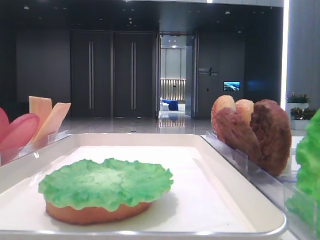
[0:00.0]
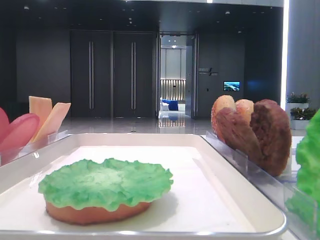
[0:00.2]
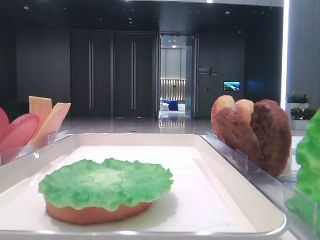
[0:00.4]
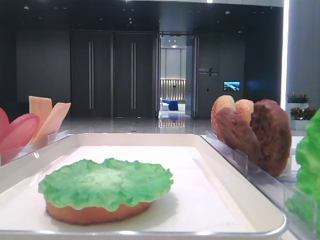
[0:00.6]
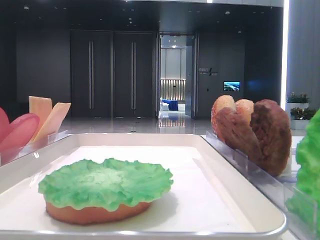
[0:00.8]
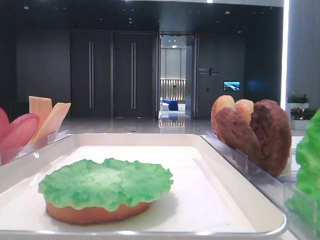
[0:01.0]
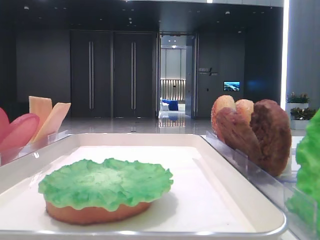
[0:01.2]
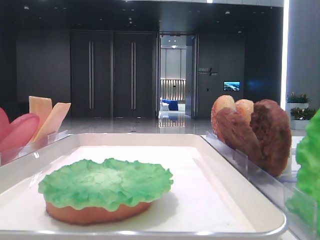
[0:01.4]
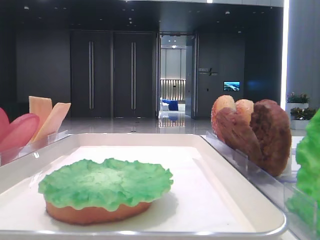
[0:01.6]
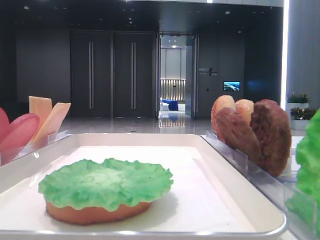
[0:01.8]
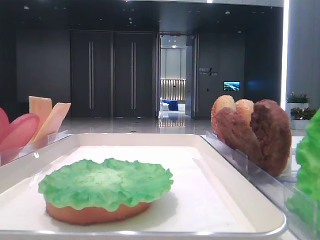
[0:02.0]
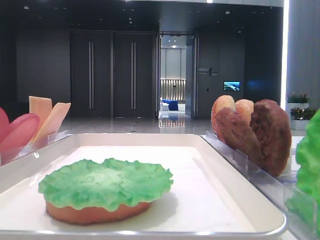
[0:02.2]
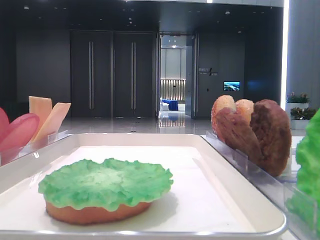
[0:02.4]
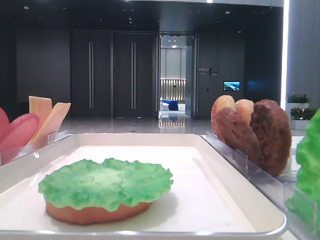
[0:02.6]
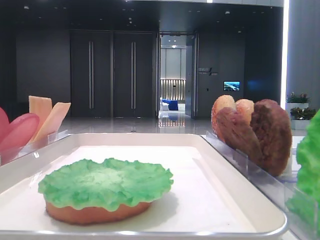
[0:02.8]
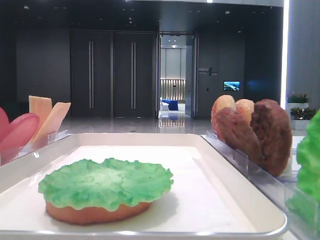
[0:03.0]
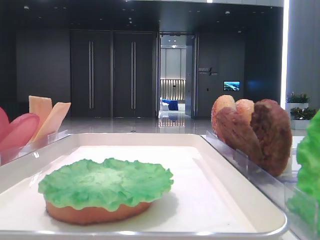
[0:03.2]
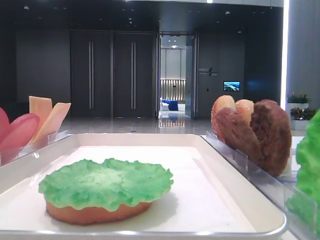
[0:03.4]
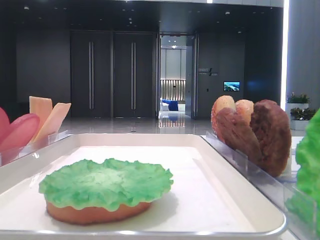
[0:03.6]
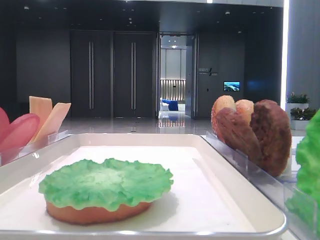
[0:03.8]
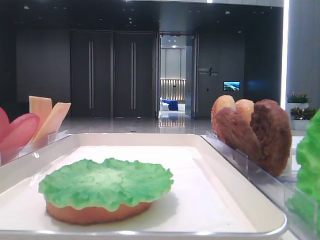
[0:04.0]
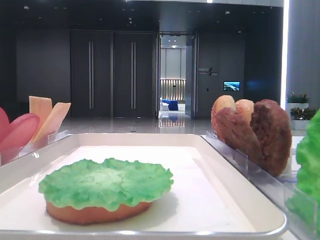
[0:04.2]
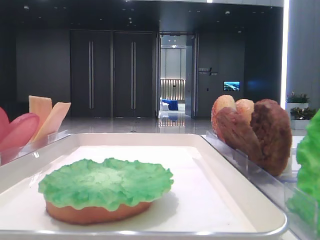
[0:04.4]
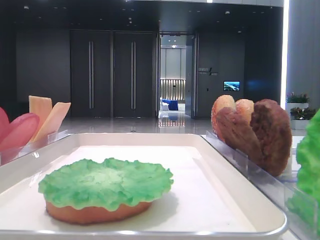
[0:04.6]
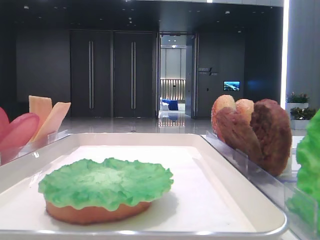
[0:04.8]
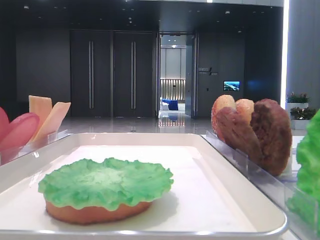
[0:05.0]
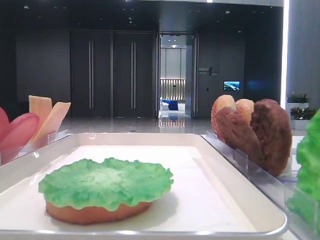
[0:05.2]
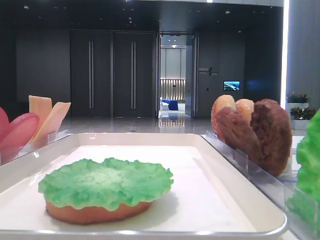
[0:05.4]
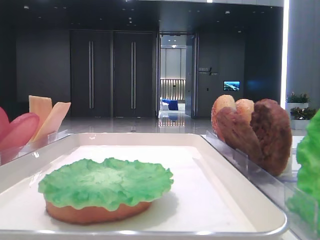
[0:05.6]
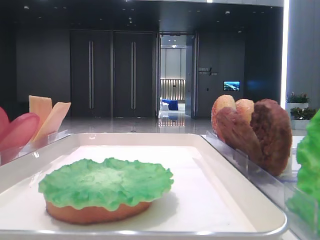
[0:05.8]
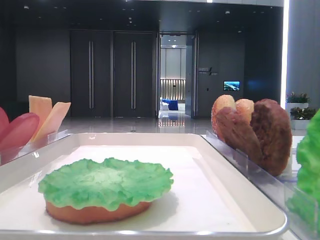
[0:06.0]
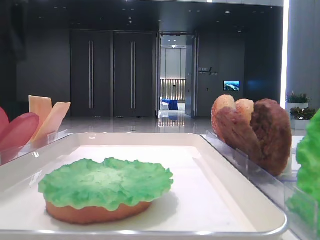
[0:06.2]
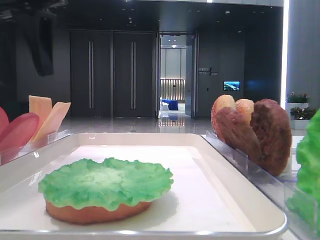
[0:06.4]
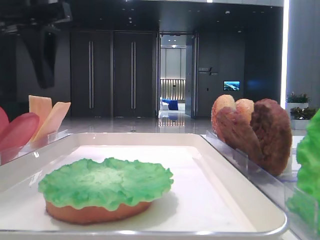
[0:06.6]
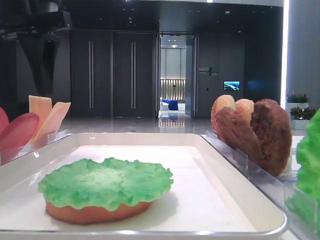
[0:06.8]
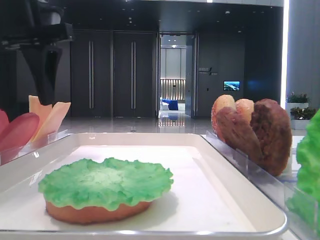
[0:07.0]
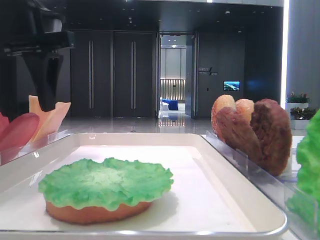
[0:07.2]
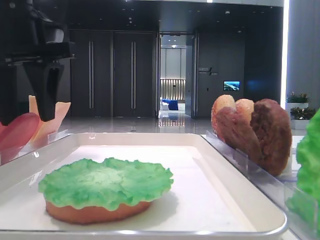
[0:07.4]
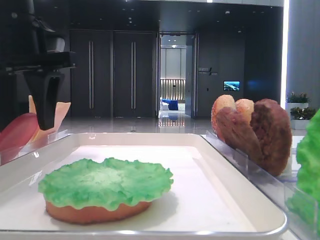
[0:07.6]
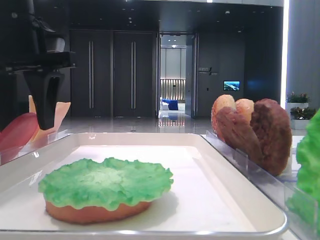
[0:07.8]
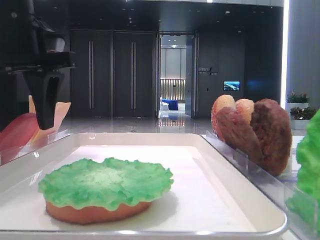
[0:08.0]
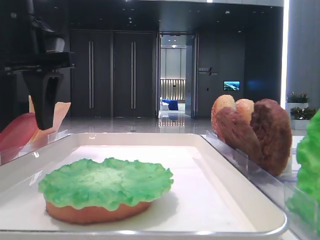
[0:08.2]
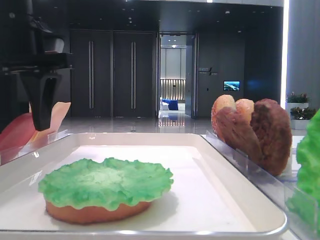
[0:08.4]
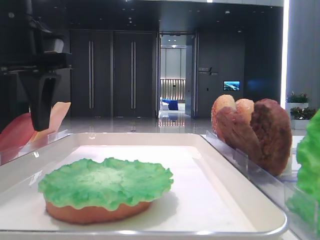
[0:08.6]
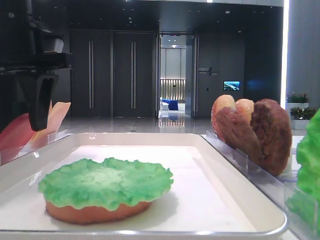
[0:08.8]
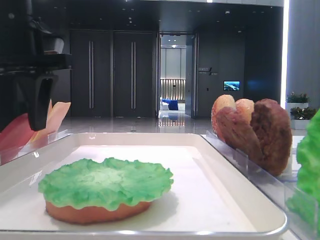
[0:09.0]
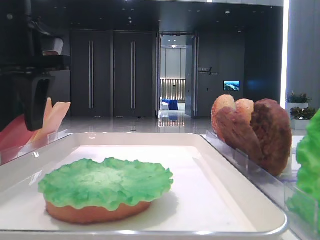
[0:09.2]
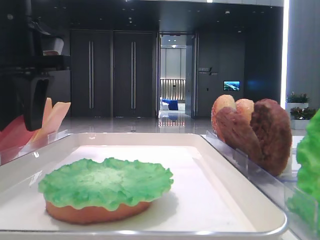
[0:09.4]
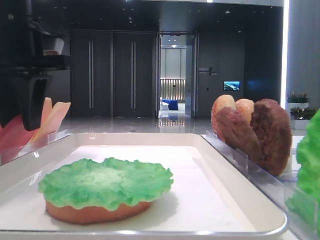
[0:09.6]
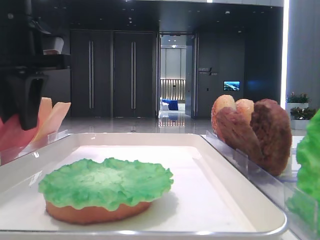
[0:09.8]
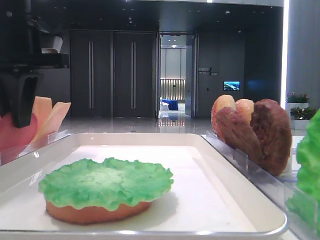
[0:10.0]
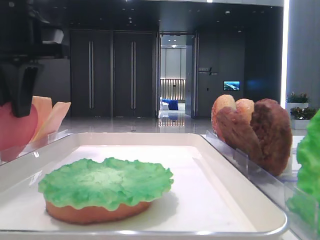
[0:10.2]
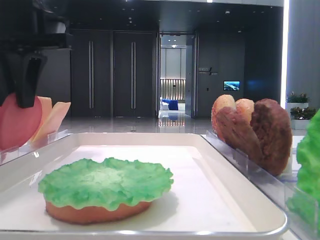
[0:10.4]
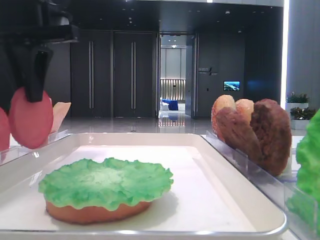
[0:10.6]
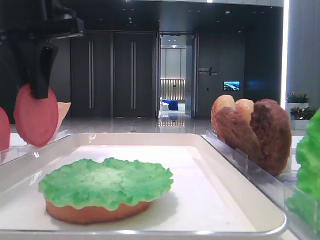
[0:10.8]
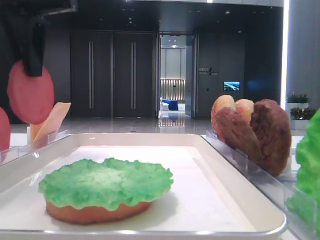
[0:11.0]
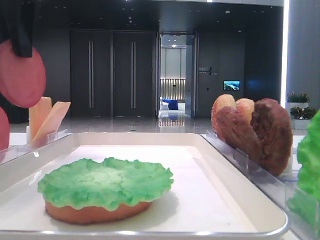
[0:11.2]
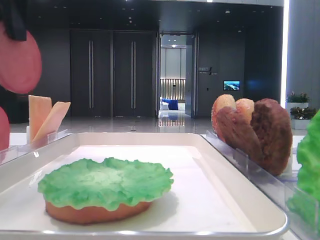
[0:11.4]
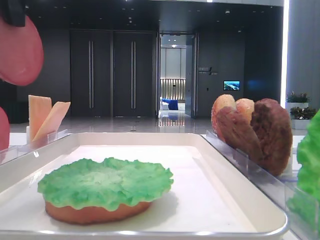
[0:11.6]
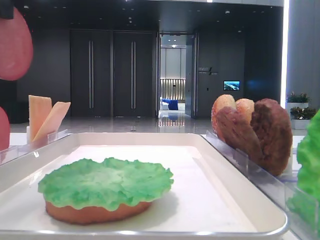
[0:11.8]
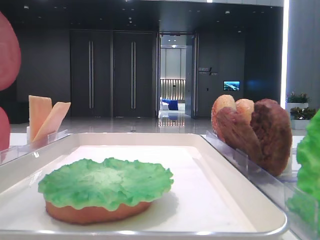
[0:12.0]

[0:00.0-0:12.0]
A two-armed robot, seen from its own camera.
Step, 0:00.0 to 0:10.2: Pick up the tomato slice with the left hand.
0:06.0 to 0:07.6: The left gripper goes about 10 cm downward and to the right.
0:07.6 to 0:09.0: The two grippers keep their place.
0:09.0 to 0:10.4: The left gripper closes.
0:10.4 to 0:12.0: The left gripper goes roughly 15 cm backward and upward.

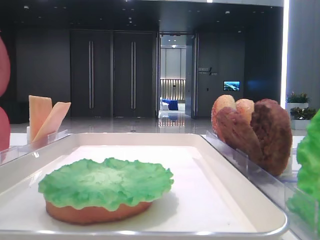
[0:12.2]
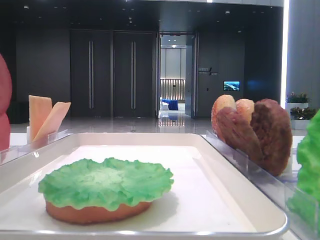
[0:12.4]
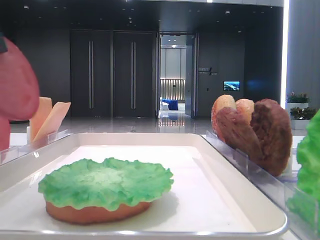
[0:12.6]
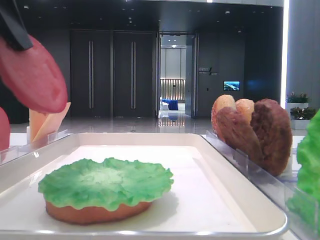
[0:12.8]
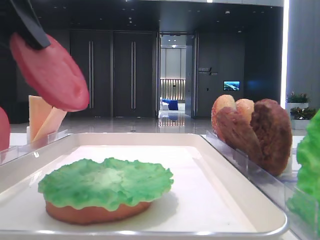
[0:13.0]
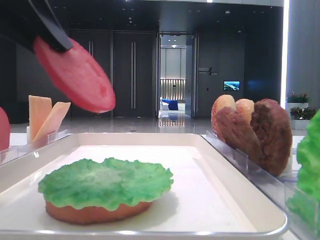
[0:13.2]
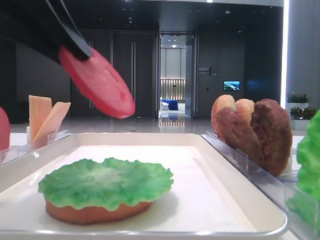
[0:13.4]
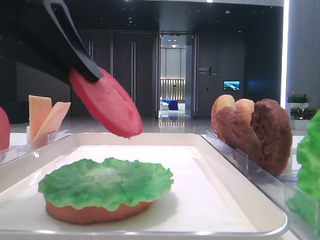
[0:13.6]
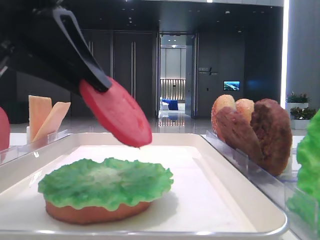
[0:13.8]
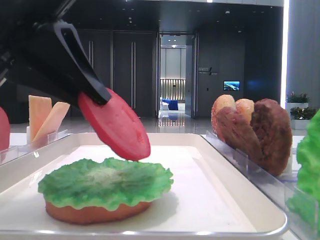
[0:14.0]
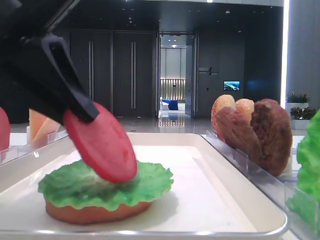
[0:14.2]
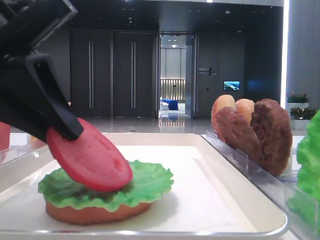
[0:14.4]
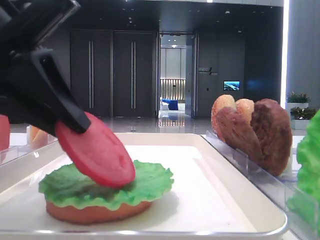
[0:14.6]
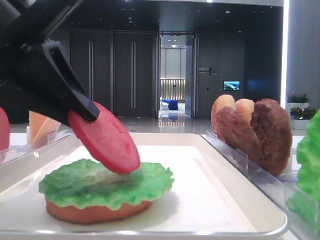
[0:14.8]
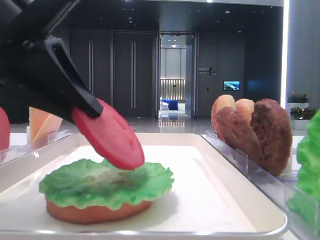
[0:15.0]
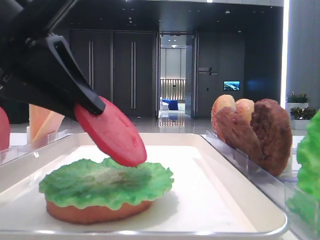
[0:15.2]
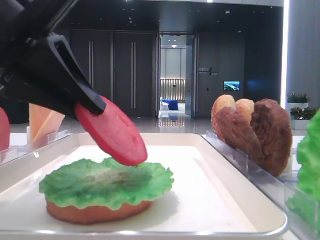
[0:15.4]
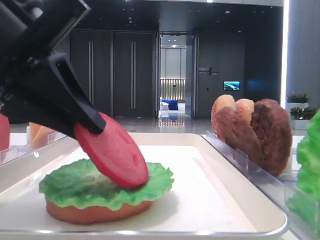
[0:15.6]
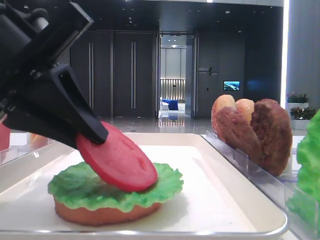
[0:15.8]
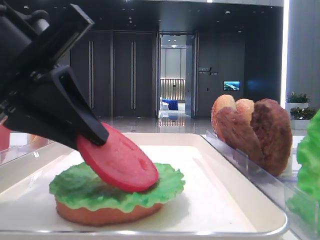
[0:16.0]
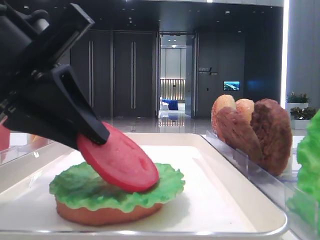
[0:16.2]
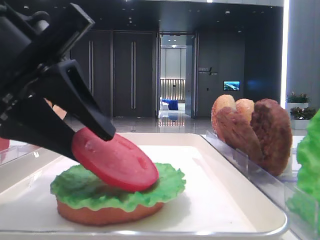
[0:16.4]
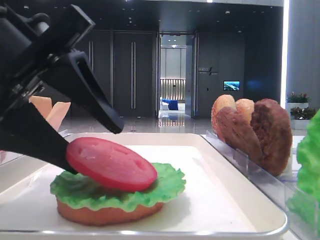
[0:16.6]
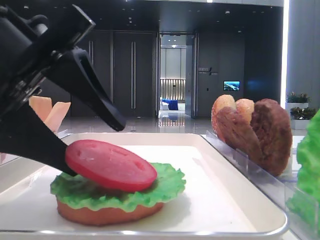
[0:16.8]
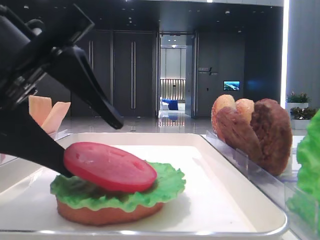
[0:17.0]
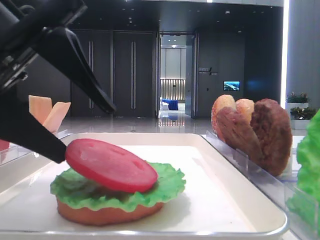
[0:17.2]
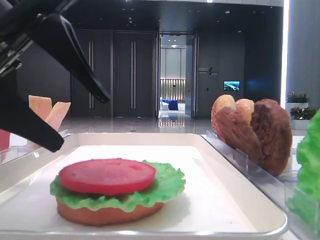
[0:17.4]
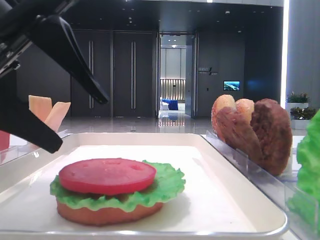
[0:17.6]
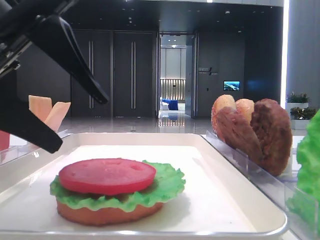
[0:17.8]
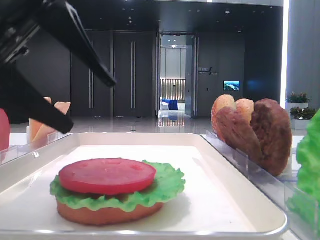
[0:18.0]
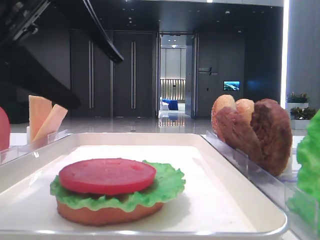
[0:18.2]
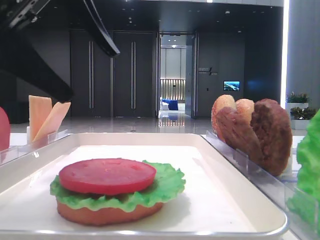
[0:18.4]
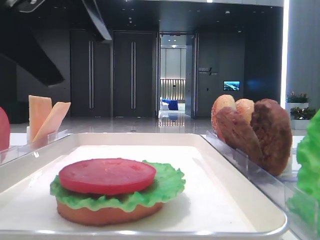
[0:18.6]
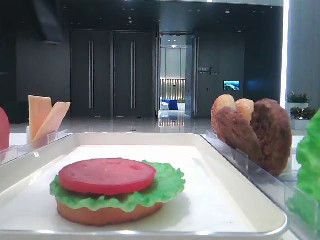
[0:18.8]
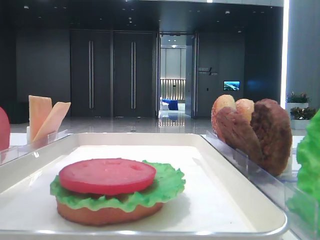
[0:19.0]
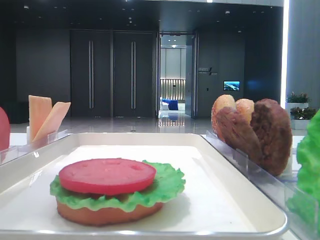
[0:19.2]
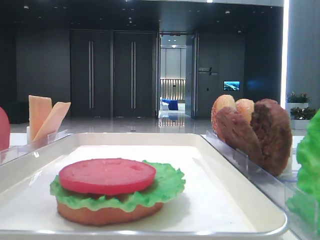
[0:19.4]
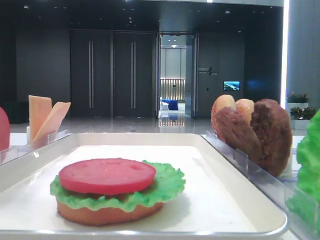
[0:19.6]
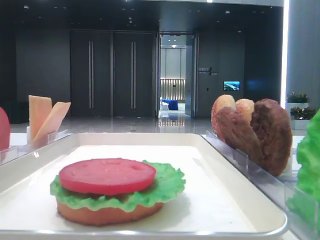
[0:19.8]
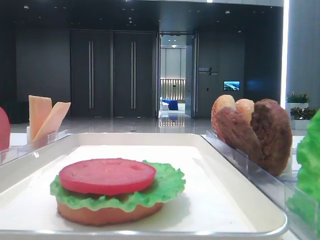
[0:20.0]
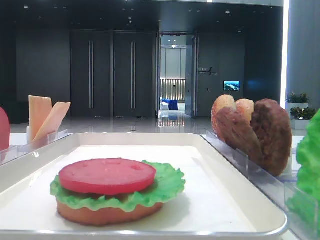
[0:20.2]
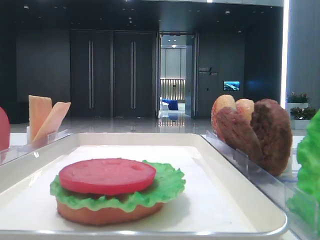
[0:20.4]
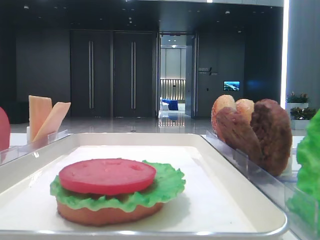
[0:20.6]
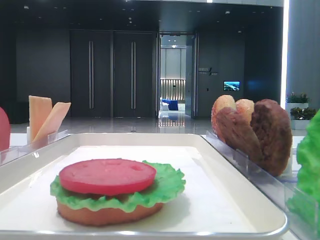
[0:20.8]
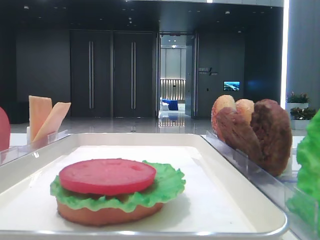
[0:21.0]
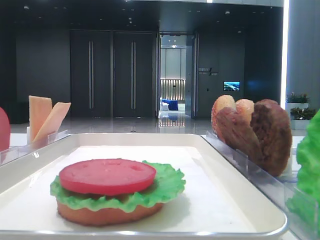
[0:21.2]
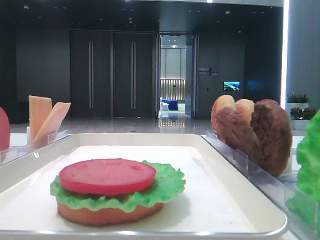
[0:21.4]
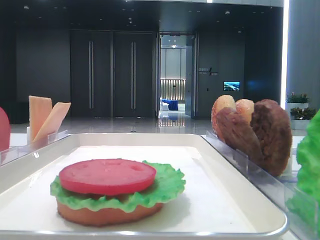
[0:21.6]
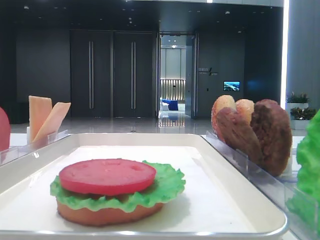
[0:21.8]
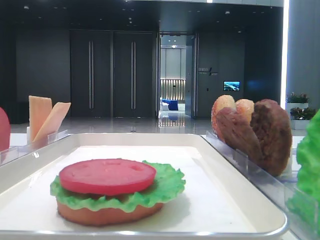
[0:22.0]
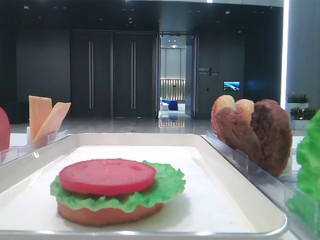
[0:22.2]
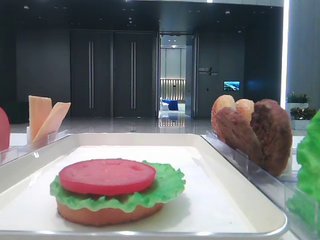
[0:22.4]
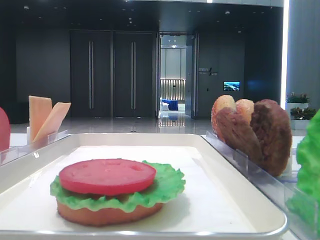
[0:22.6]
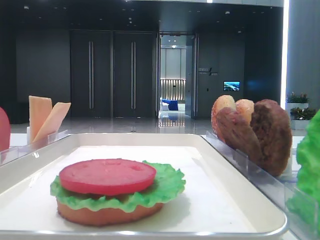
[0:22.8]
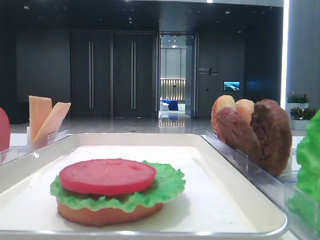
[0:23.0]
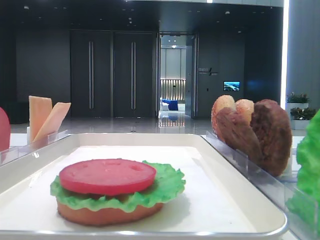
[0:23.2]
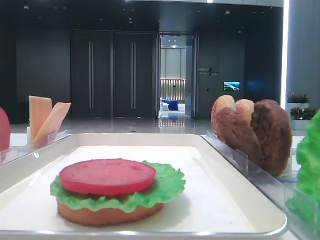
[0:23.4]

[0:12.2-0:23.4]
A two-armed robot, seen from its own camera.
Step, 0:12.2 to 0:17.2: Place the tomato slice on the lettuce leaf with the left hand.
0:12.2 to 0:13.8: The left gripper moves downward and to the right, about 10 cm.
0:13.8 to 0:15.4: The grippers move only a little.
0:15.4 to 0:17.0: The left gripper opens its fingers.
0:17.0 to 0:18.6: The left gripper heads upward, covering approximately 10 cm.
0:18.6 to 0:20.2: The left gripper heads to the left and upward, covering some 15 cm.
0:21.8 to 0:23.4: Neither gripper changes place.
